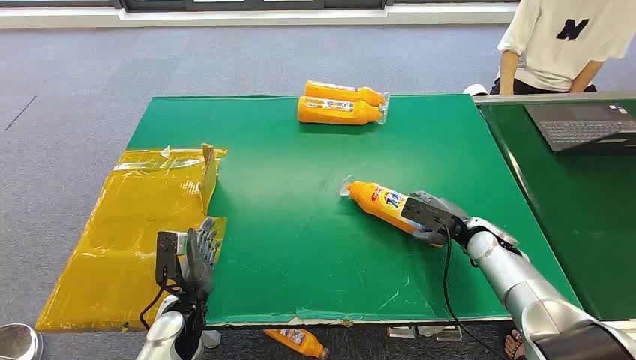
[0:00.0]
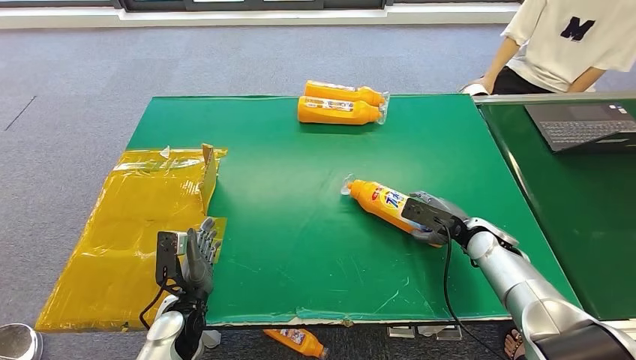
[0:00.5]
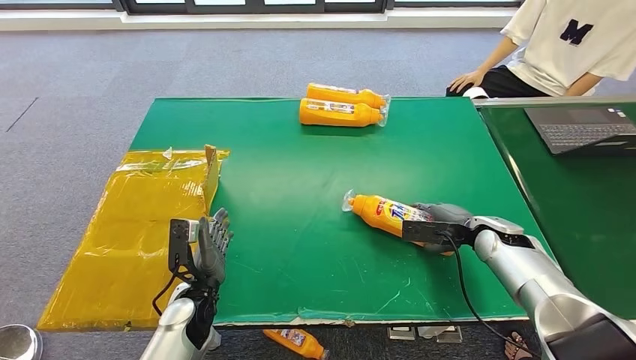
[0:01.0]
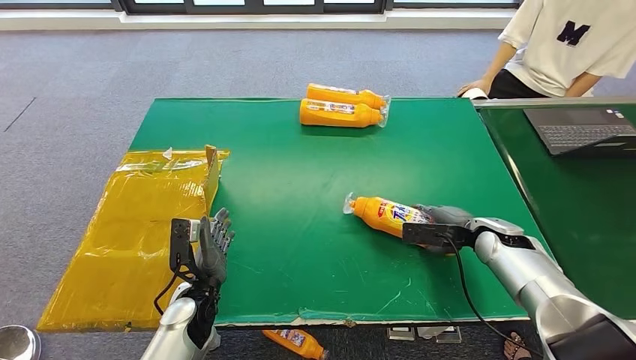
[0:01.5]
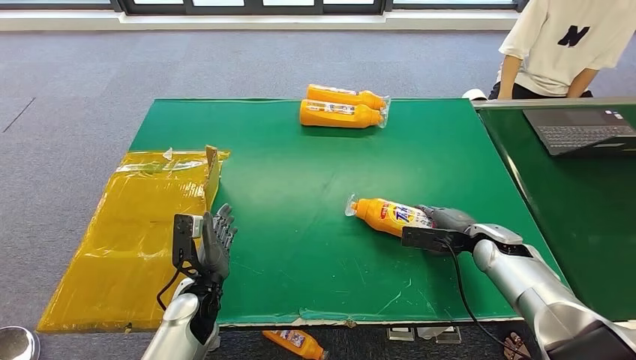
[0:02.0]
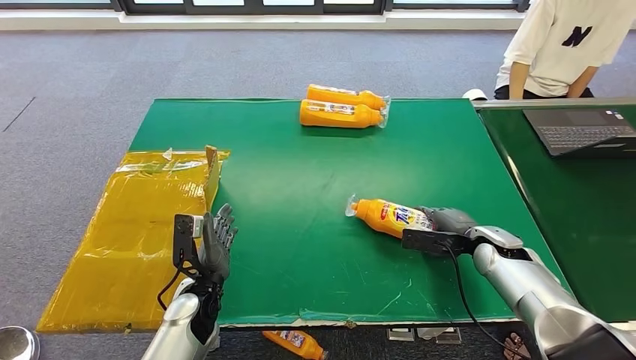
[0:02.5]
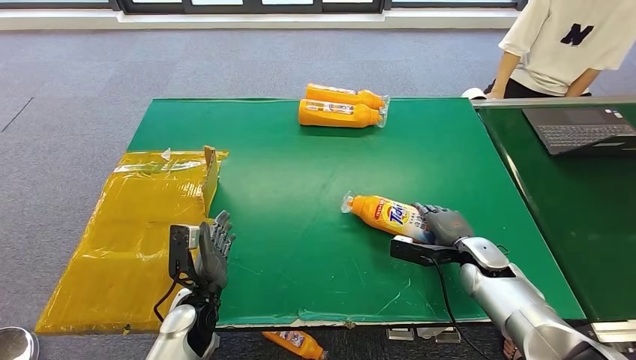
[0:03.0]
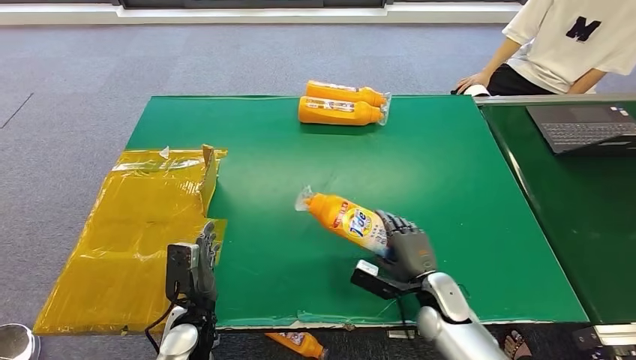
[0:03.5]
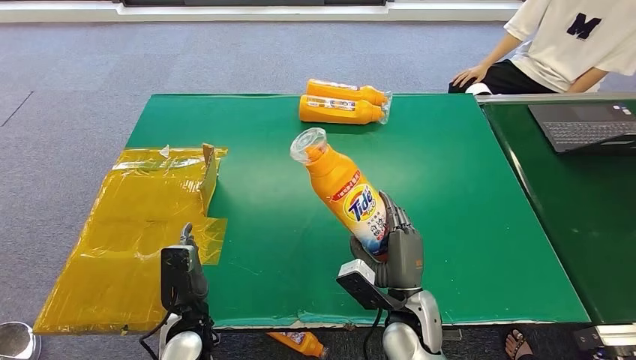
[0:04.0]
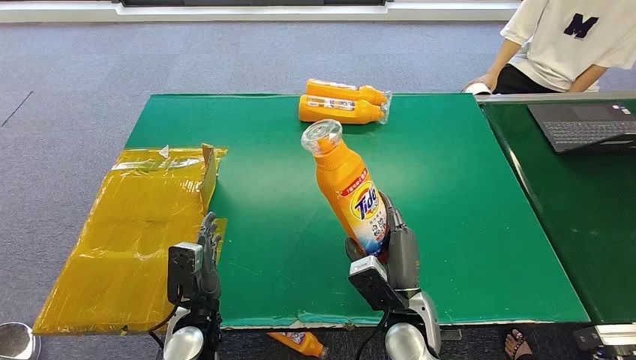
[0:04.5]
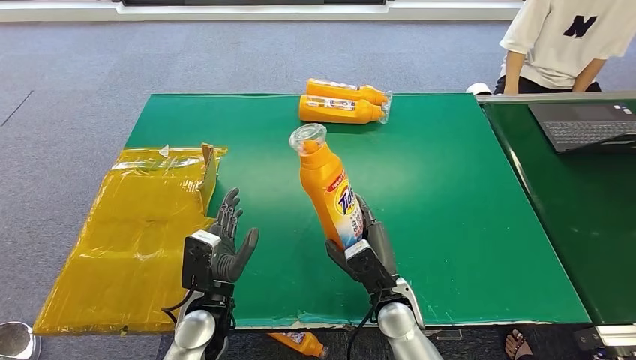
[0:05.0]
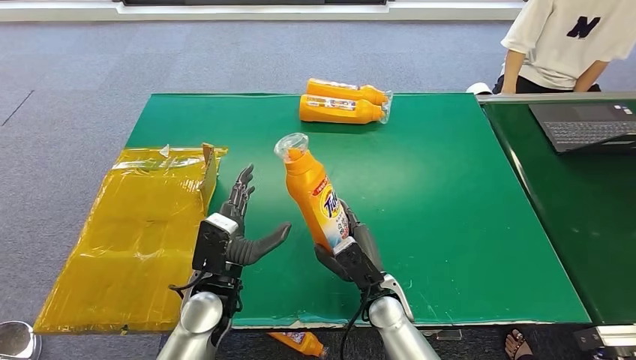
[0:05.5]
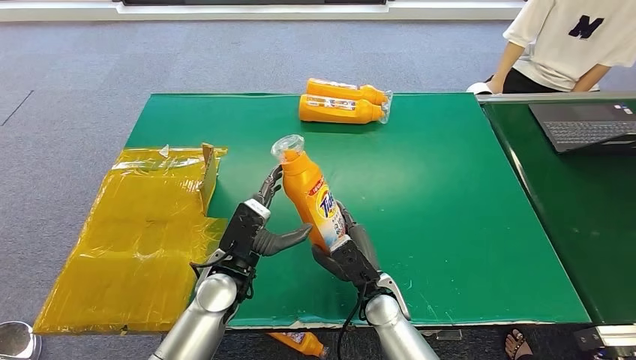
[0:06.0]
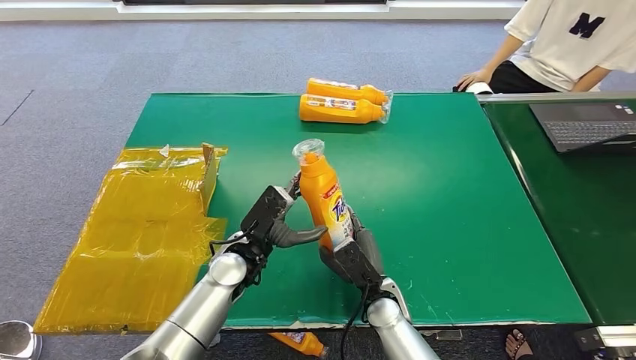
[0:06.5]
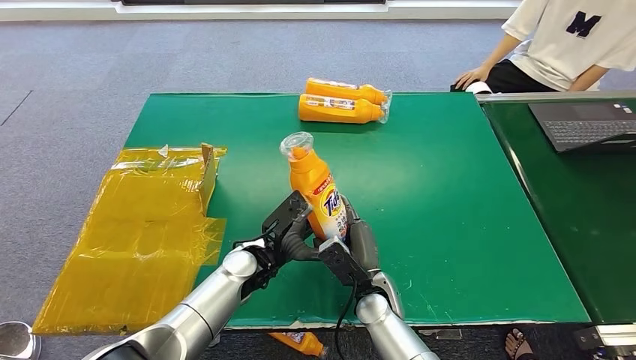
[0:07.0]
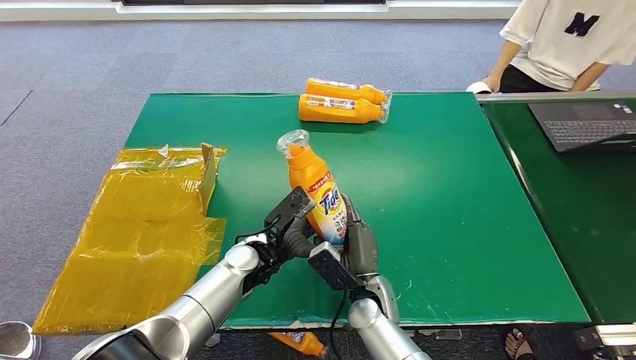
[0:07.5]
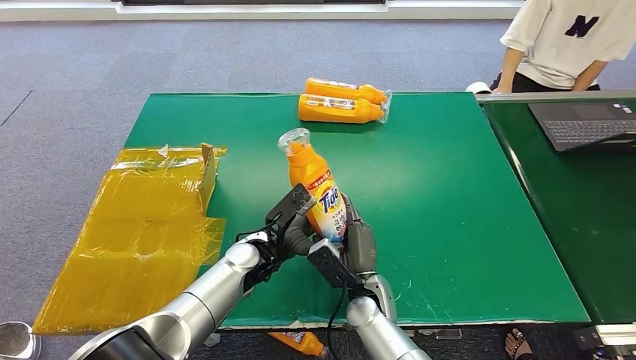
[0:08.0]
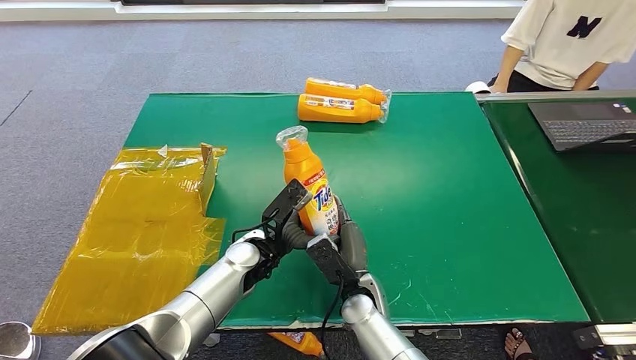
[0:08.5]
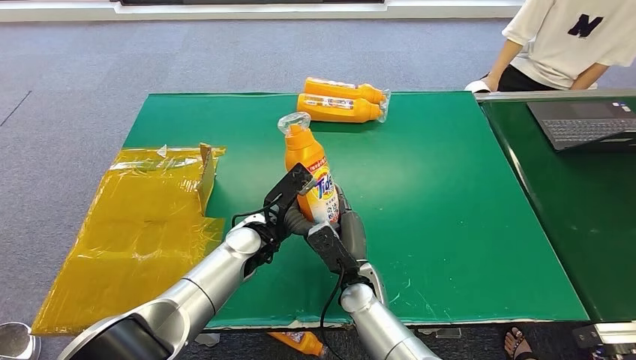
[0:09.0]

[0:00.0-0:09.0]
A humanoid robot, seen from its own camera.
Step, 0:00.0 to 0:04.0: Pick up the bottle from the table.
0:04.5 to 0:07.0: The right hand shifts approximately 5 cm downward and to the left. The left hand goes roughly 15 cm forward and to the right.
0:07.0 to 0:09.0: The left hand shifts by approximately 5 cm.

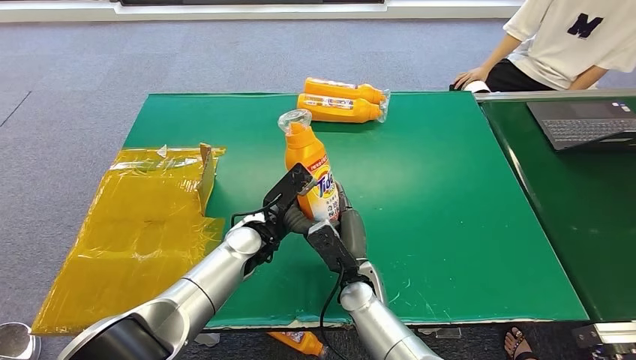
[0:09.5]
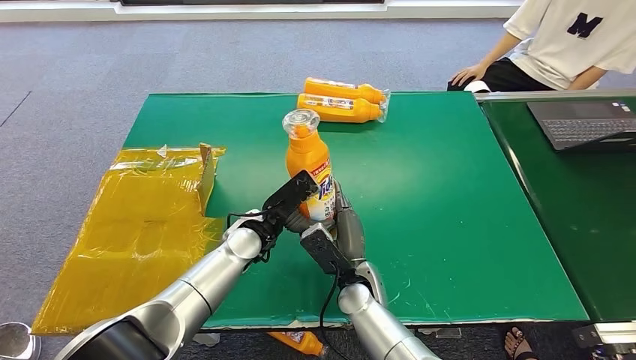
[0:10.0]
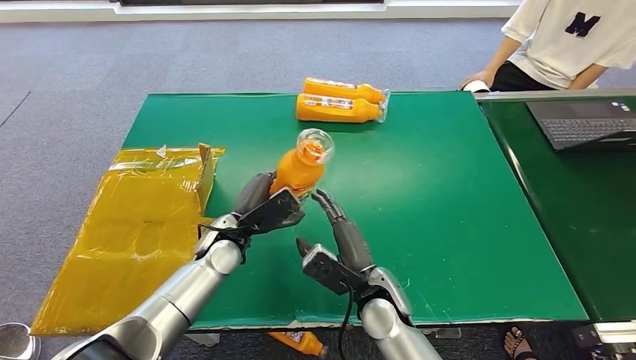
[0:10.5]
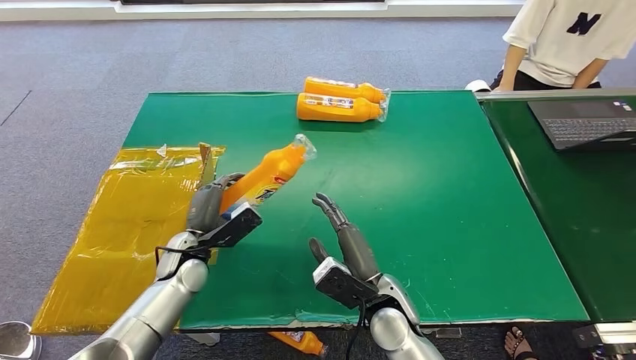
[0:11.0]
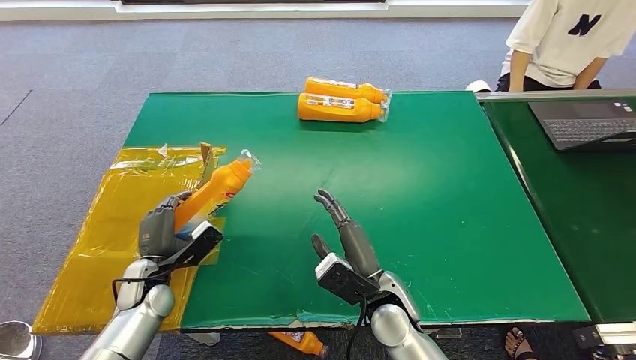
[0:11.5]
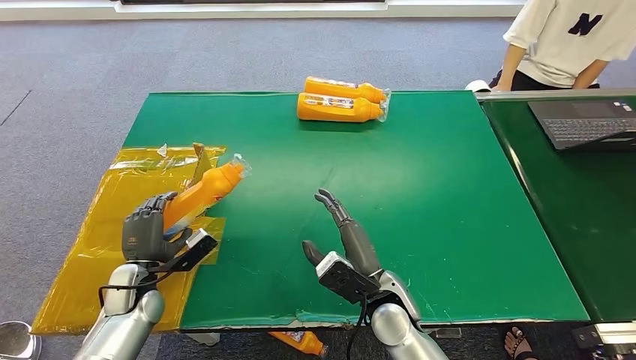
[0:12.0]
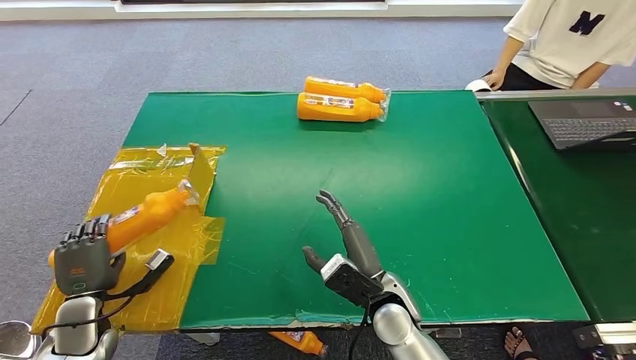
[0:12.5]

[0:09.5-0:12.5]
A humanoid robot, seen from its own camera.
Step, 0:09.5 to 0:12.5: Turn the bottle to the front side.
0:09.5 to 0:11.0: The right hand is displaced to the right by some 5 cm; the left hand heads to the left, covering some 15 cm.
0:11.0 to 0:12.5: The left hand travels to the left and backward by about 20 cm.
